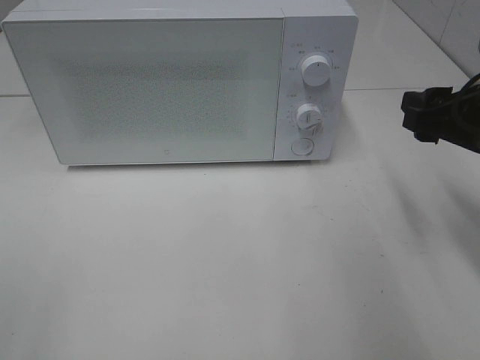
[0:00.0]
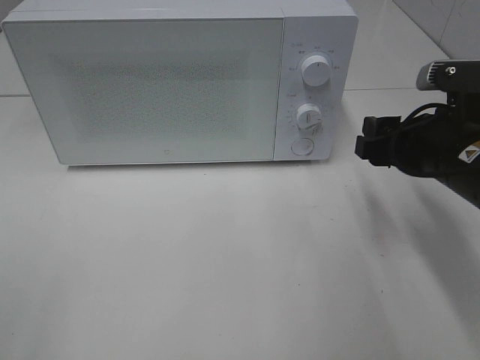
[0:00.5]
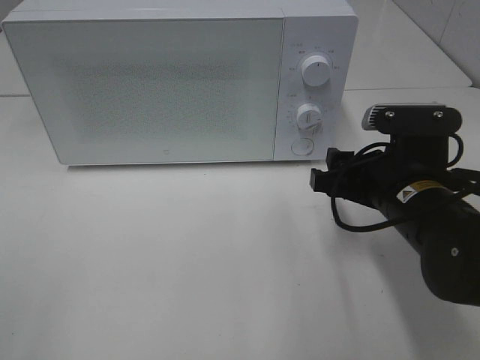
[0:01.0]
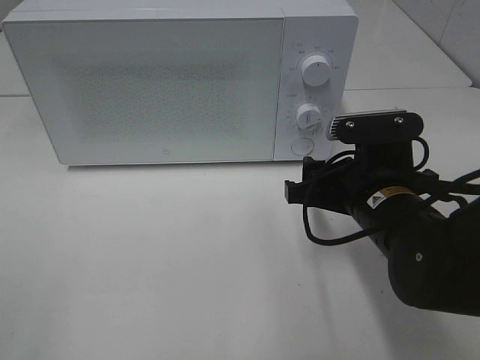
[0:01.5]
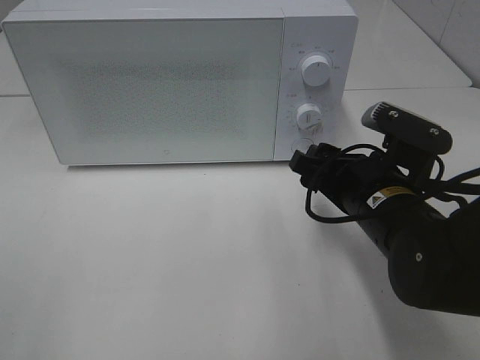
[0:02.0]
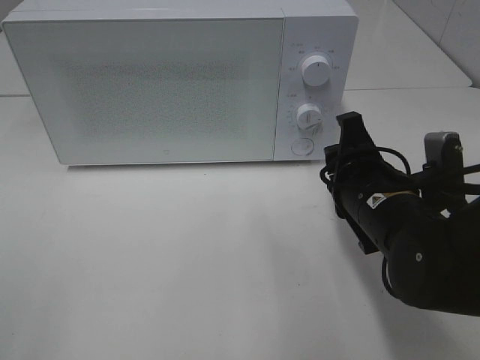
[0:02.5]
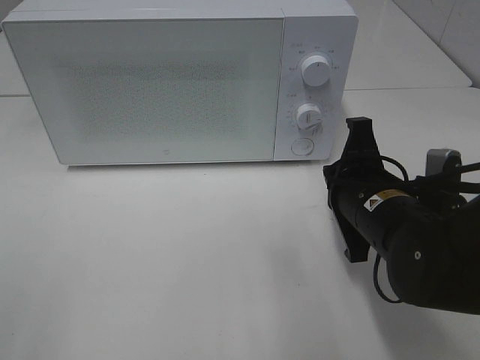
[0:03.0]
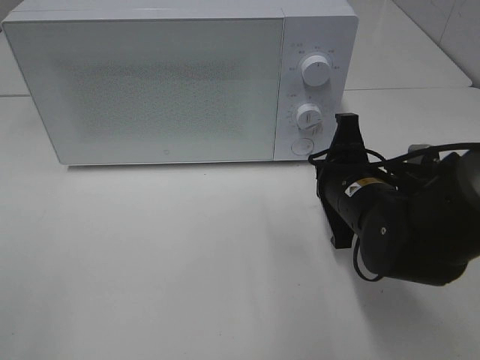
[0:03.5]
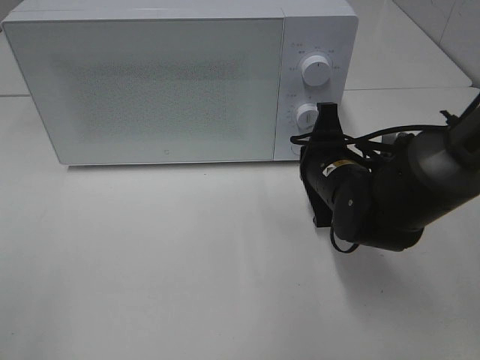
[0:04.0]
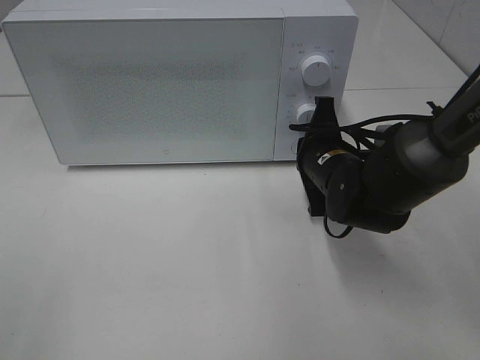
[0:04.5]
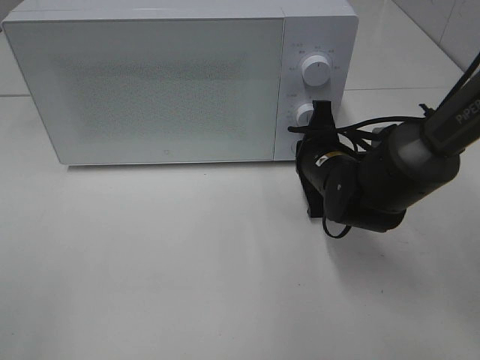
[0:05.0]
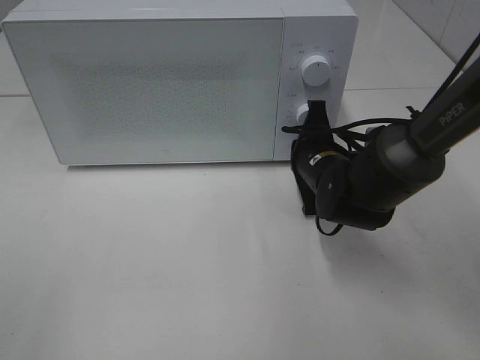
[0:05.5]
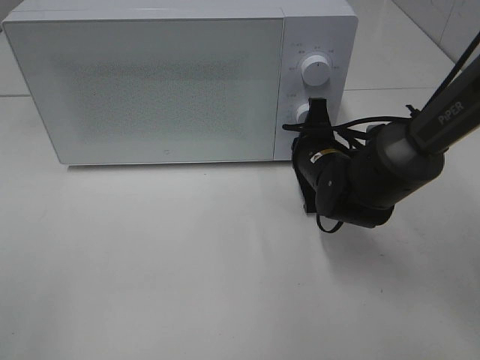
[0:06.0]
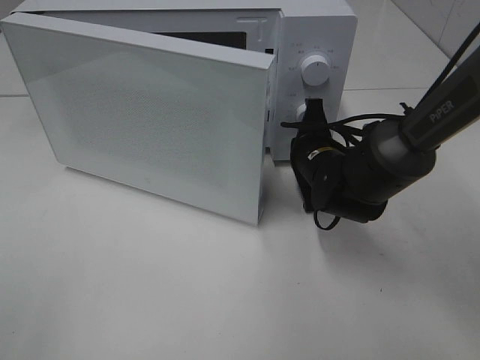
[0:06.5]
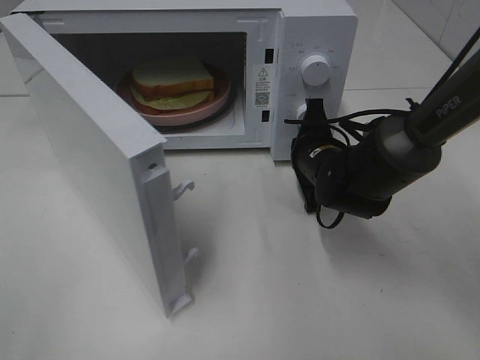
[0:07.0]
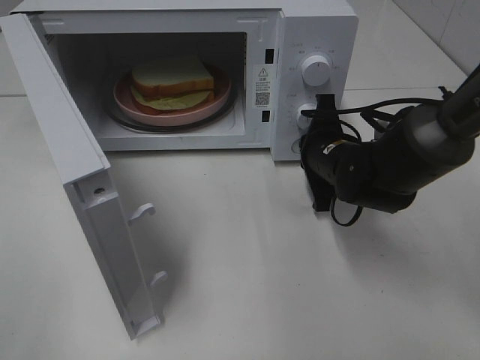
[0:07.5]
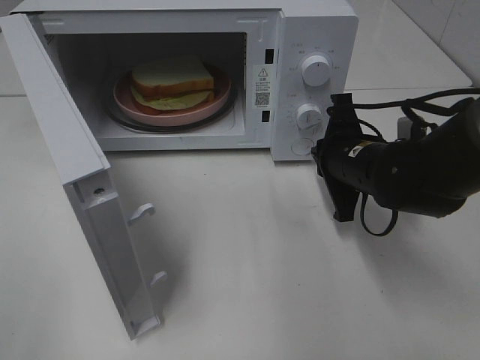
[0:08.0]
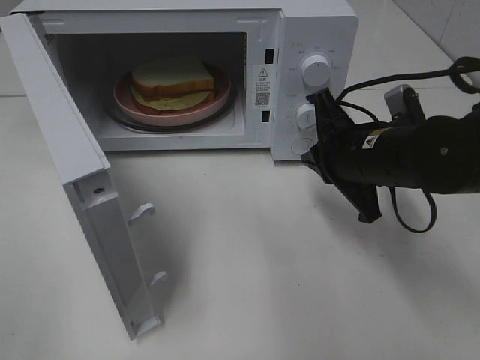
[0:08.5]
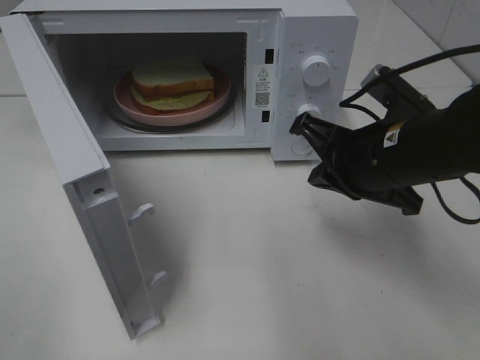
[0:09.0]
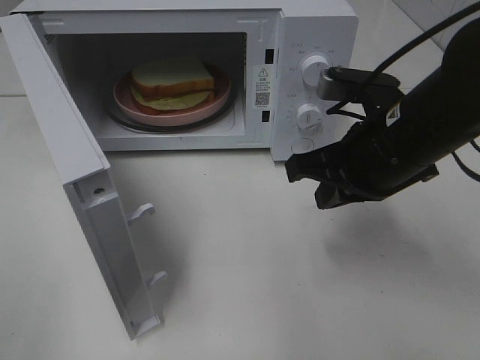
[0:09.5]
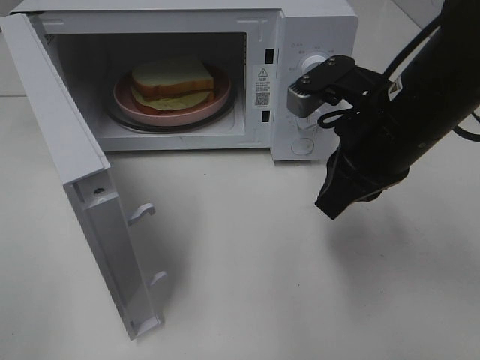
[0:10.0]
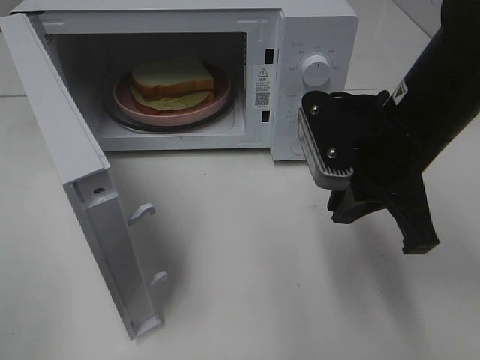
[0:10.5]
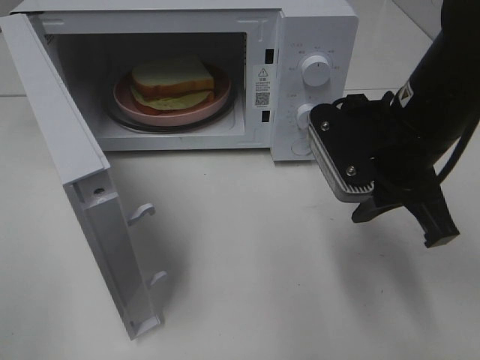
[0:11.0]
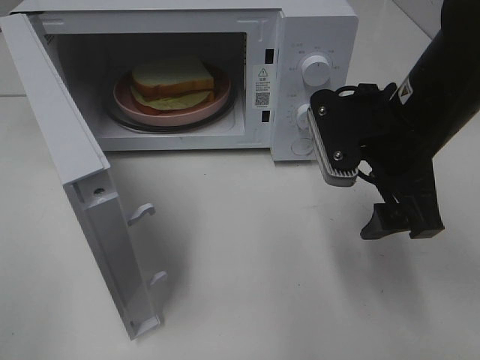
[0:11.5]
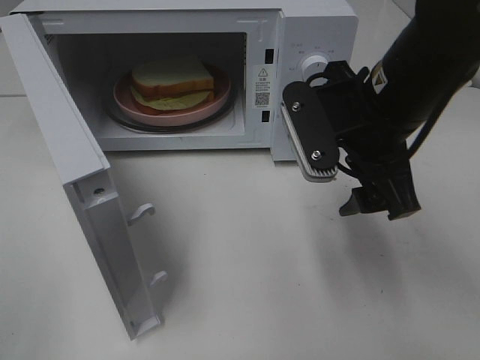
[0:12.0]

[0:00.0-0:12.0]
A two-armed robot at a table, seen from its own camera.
Task of the whole recording: Heat Sandwich.
Step, 0:00.0 to 0:07.5: Right hand: press the switch.
0:00.0 to 0:02.0: The right gripper goes some 15 cm to the left and downward.
0:02.0 to 0:04.0: The right gripper goes about 5 cm forward, and closes its fingers.
0:04.0 to 0:06.0: There are only small adjustments of the grippers.
0:06.0 to 0:08.0: The right gripper moves approximately 5 cm.
0:08.0 to 0:10.0: The right gripper shifts some 10 cm upward and backward.
0:10.0 to 0:12.0: The right gripper opens its fingers.

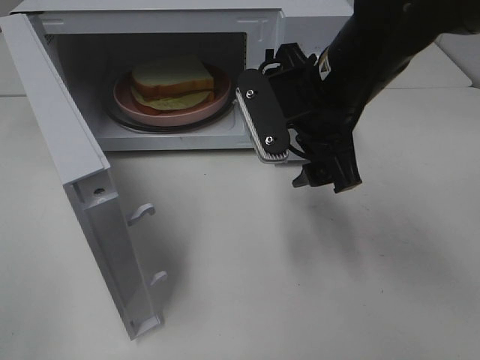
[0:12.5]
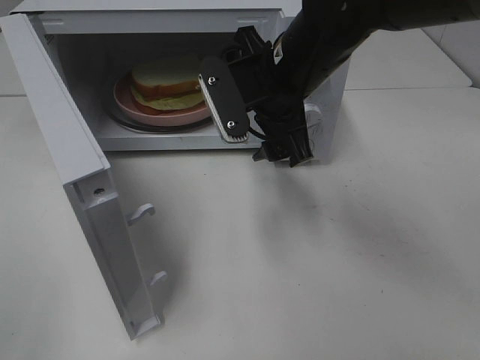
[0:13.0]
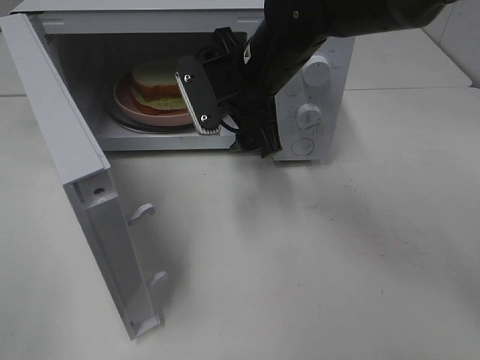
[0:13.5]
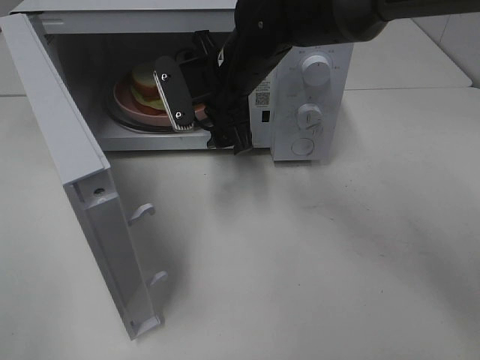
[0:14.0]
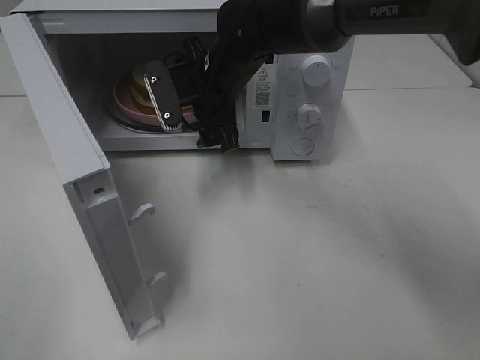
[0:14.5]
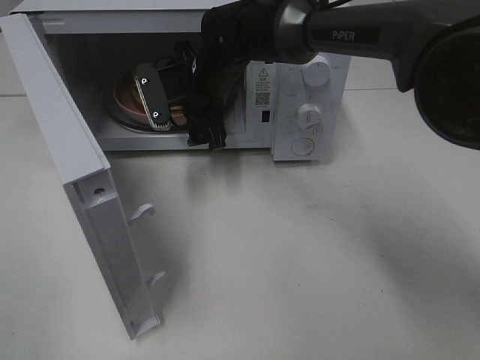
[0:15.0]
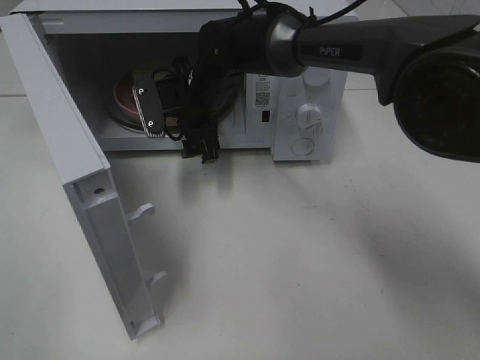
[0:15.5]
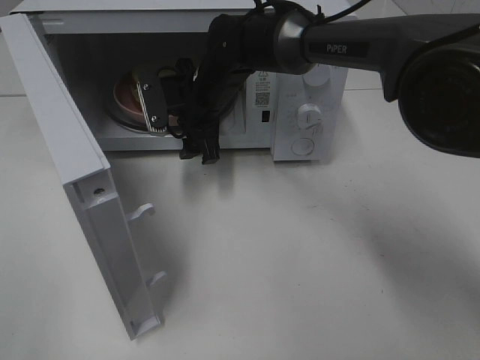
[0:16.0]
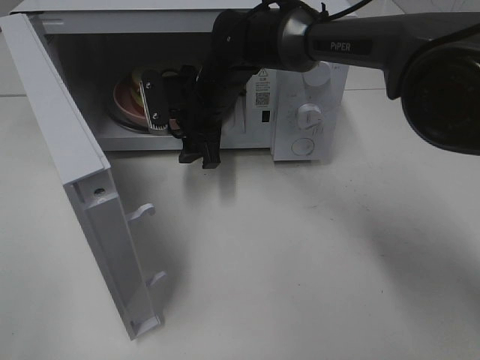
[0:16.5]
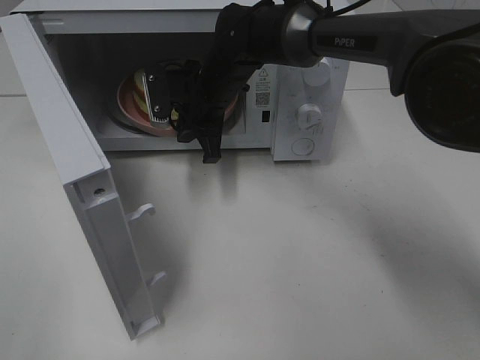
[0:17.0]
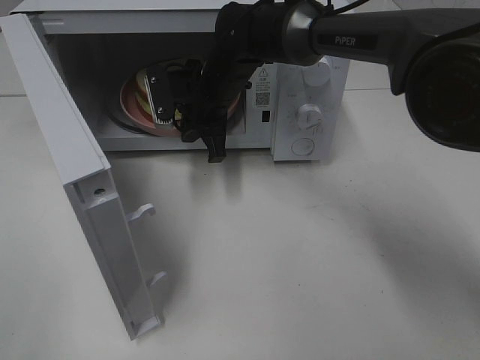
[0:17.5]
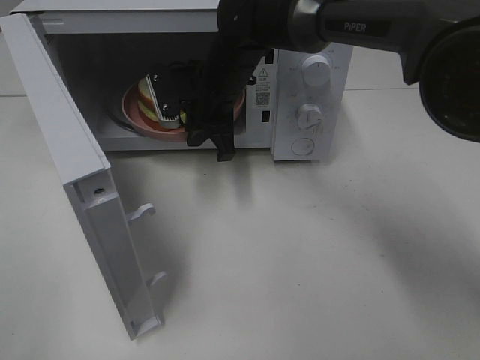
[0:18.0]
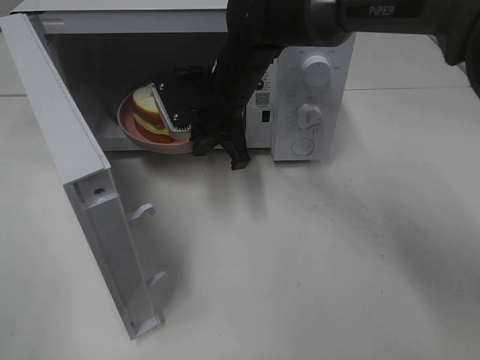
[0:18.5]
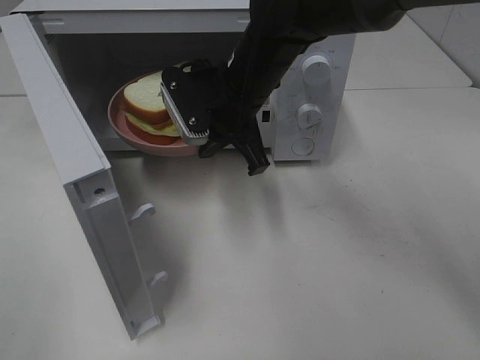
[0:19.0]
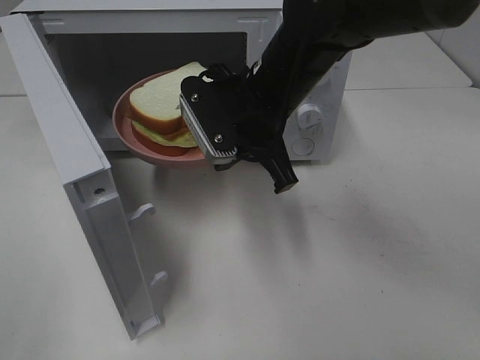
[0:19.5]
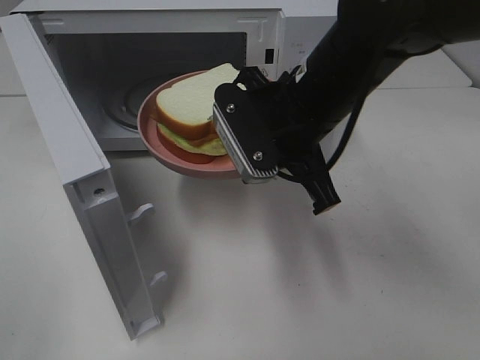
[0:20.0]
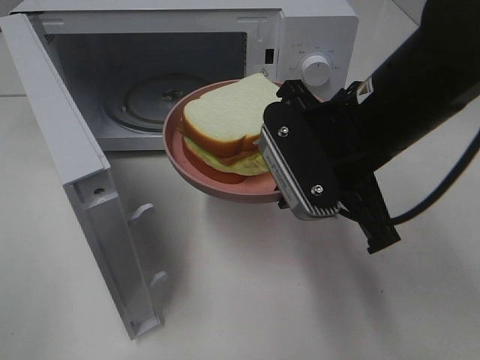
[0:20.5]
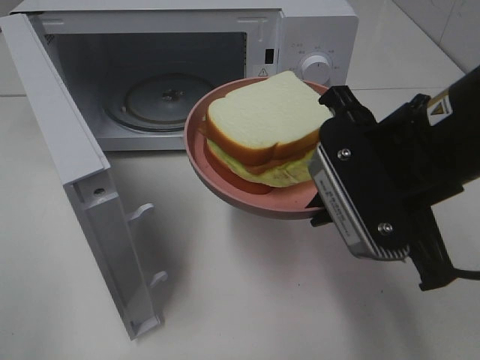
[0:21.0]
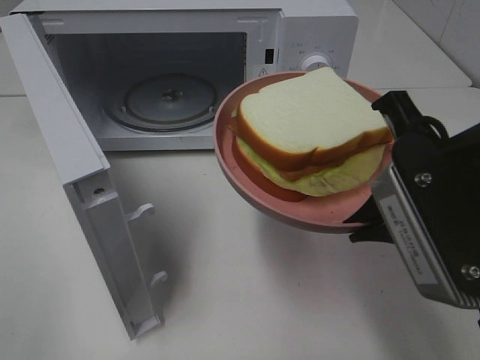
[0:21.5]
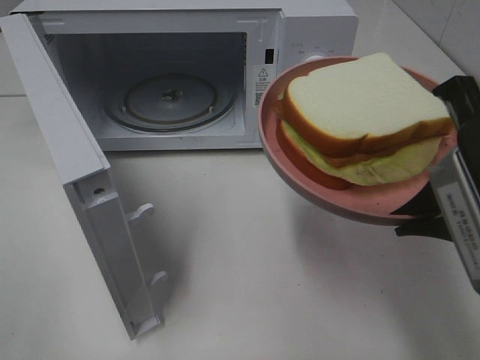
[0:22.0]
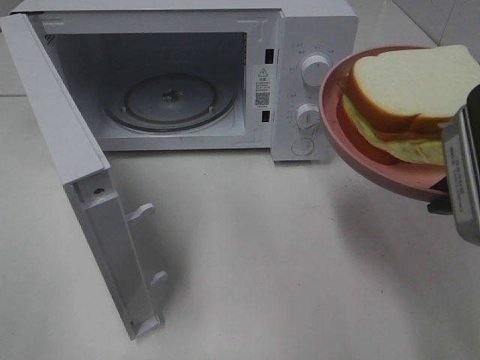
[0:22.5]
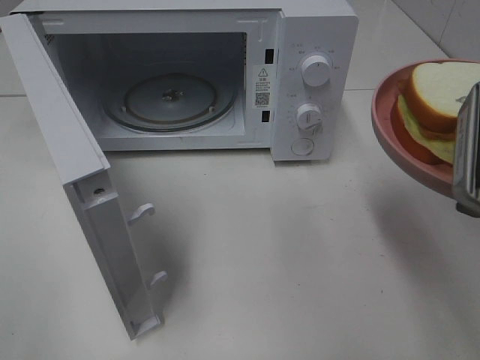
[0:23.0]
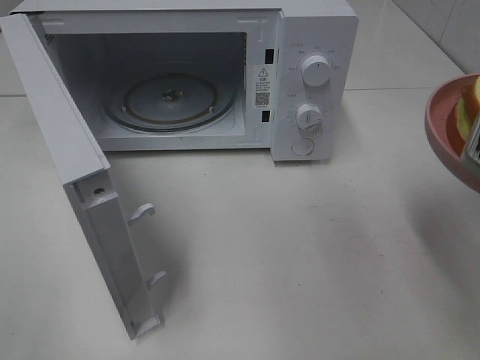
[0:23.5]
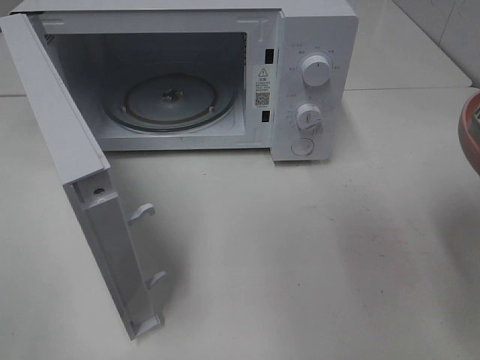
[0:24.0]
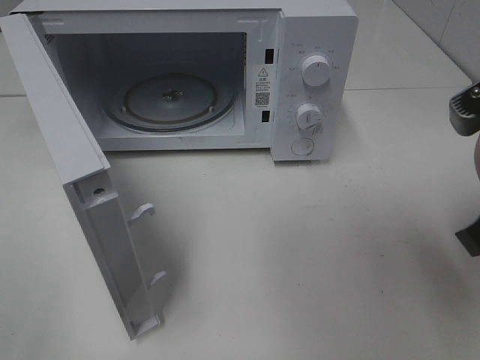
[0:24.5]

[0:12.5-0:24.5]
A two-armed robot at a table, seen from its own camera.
Task of the whole recording: Heat Sandwich.
Step, 0:12.5 to 0:17.0: Right hand: grab the plate with the sandwich.
0:12.5 to 0:14.5: The right gripper heads forward, to the left and downward, covering about 15 cm.
0:14.5 to 0:16.5: The grippers make only small movements.
0:16.5 to 0:18.5: The right gripper closes its fingers.
0:18.5 to 0:20.5: The right gripper heads backward and to the right, covering roughly 20 cm.
0:20.5 to 0:22.5: The right gripper moves to the right and backward, about 15 cm.

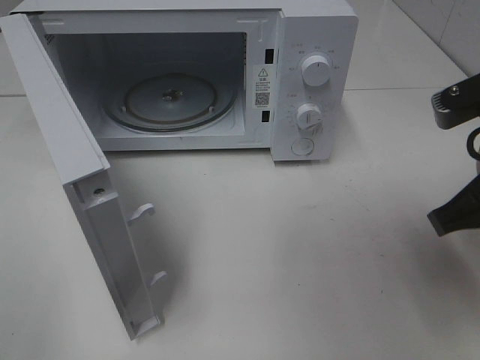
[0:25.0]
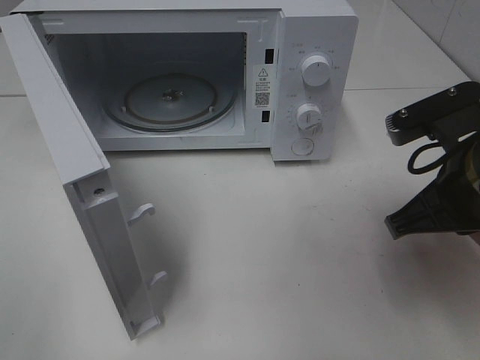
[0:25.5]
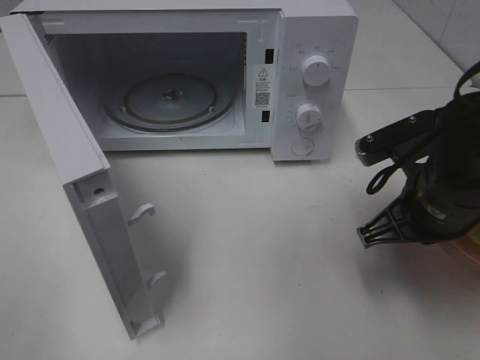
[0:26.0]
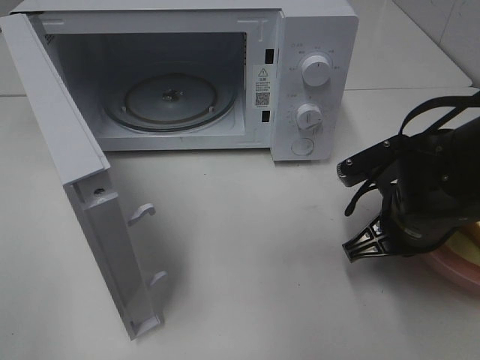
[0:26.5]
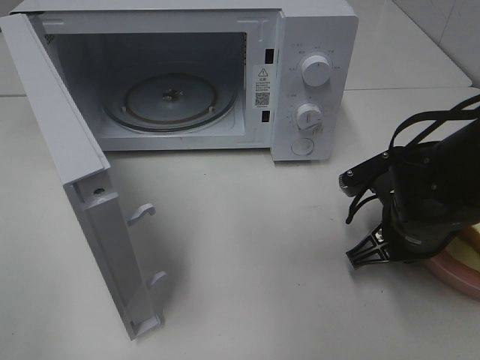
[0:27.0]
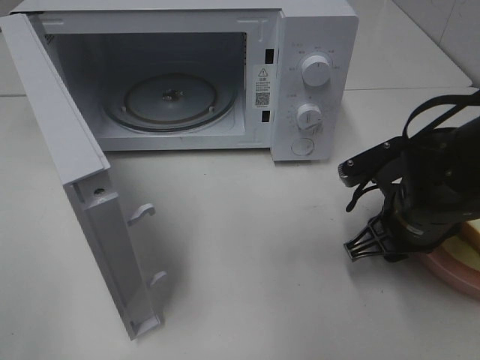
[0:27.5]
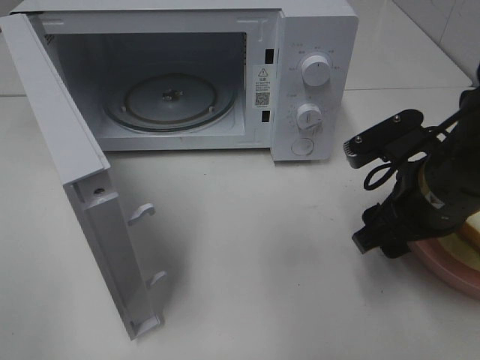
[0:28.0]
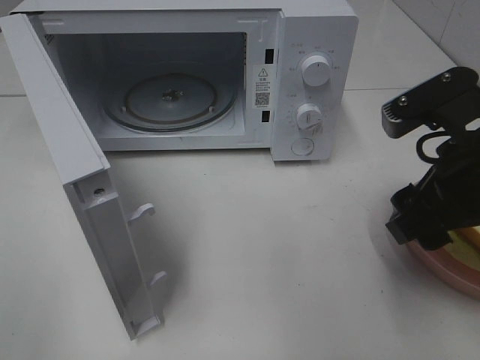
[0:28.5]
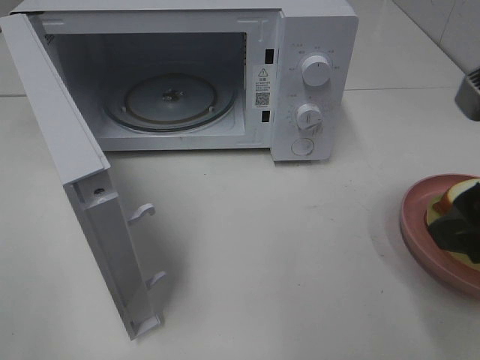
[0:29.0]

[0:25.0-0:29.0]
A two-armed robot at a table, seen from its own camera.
Task of the whole recording: Heat Sandwich.
Step, 0:25.0 to 0:28.5: Right hand: place the plate on the table.
0:25.0 to 0:27.0: The right gripper goes about 15 cm downward and forward.
0:27.0 to 0:29.0: The right gripper moves upward and backward, about 20 cm, and opens its fingers.
